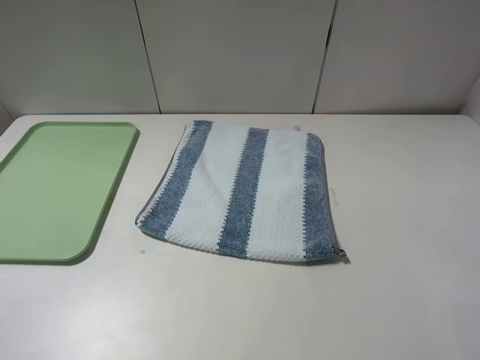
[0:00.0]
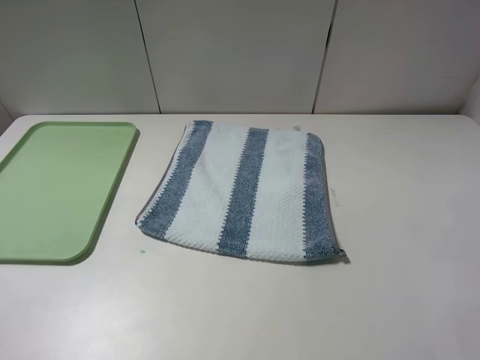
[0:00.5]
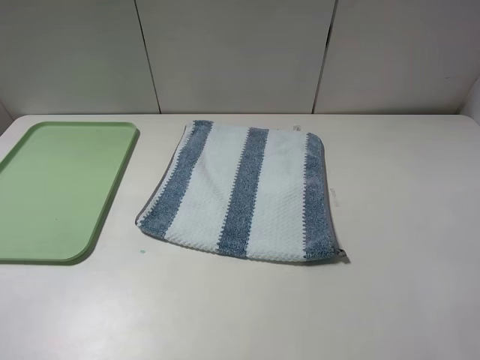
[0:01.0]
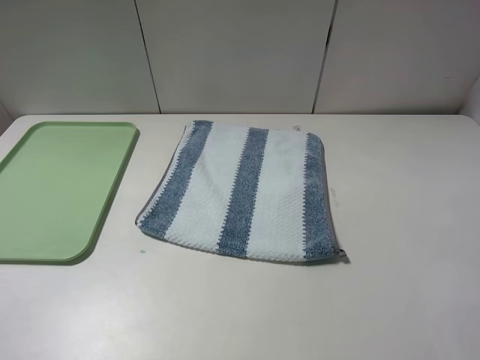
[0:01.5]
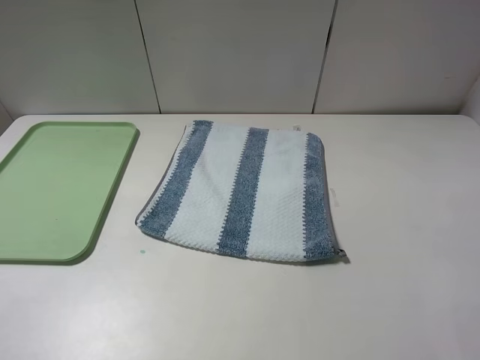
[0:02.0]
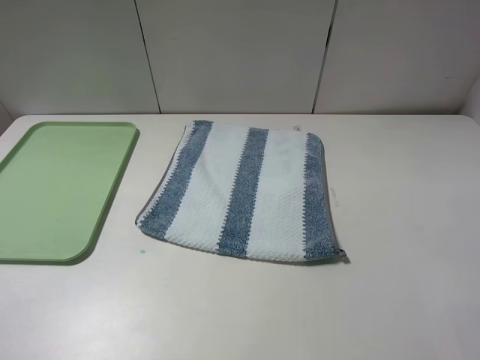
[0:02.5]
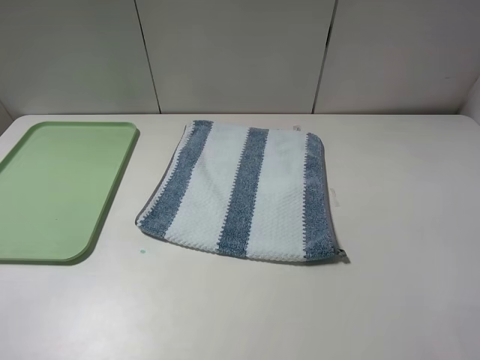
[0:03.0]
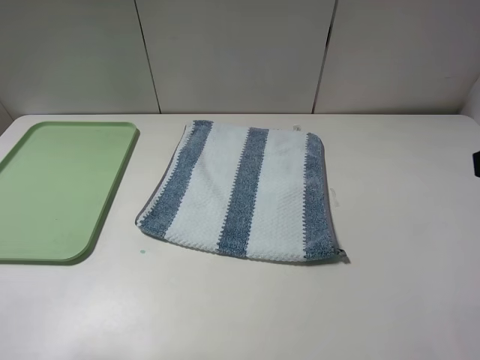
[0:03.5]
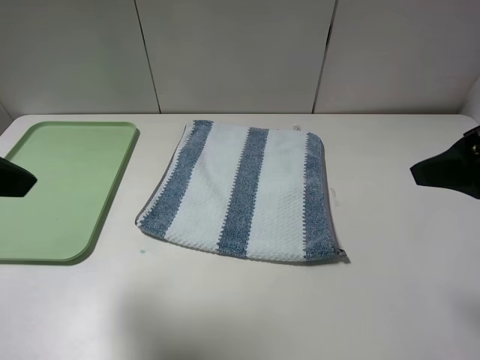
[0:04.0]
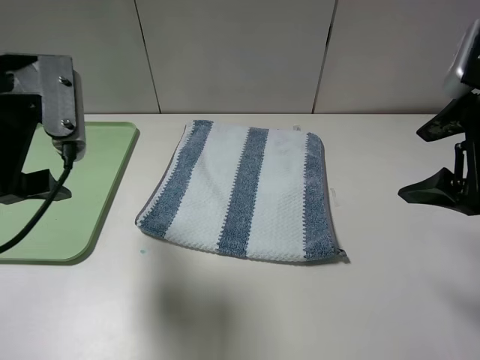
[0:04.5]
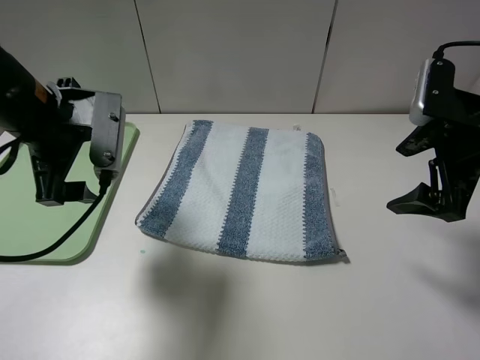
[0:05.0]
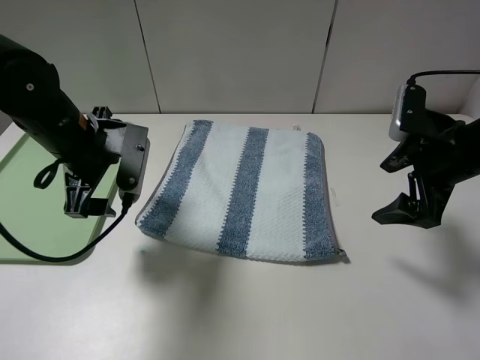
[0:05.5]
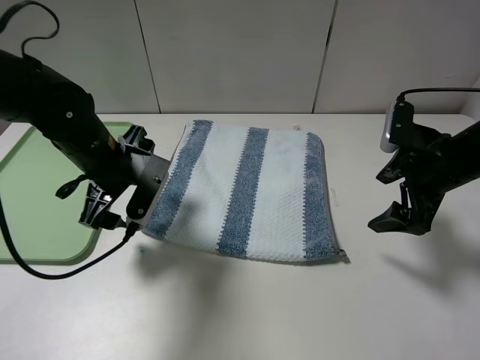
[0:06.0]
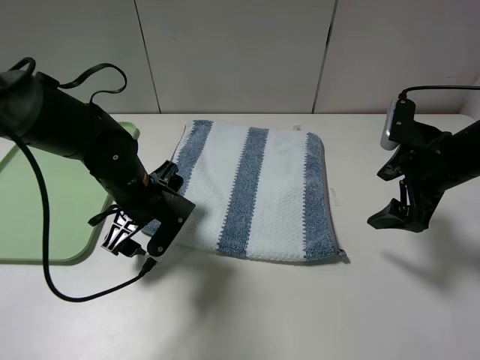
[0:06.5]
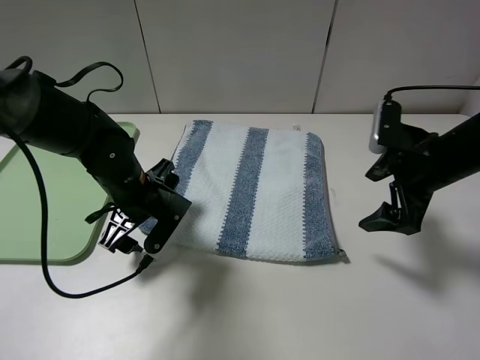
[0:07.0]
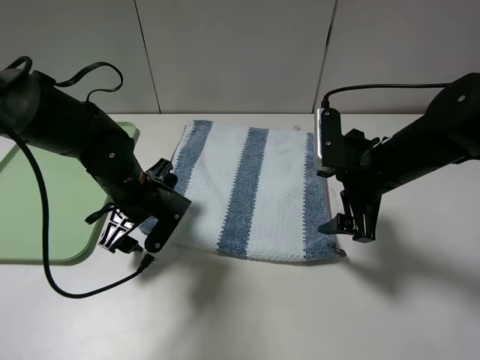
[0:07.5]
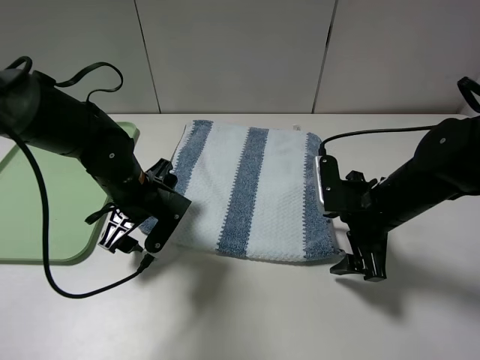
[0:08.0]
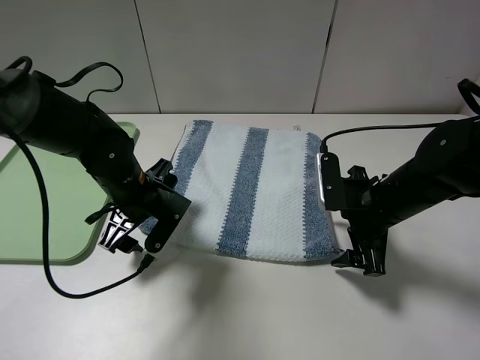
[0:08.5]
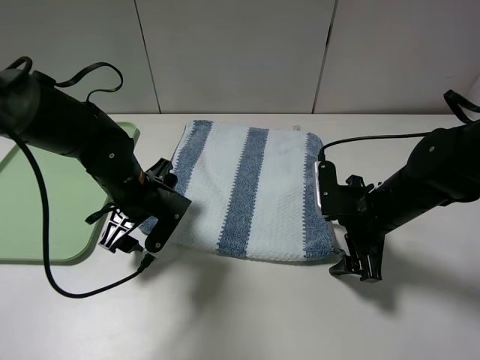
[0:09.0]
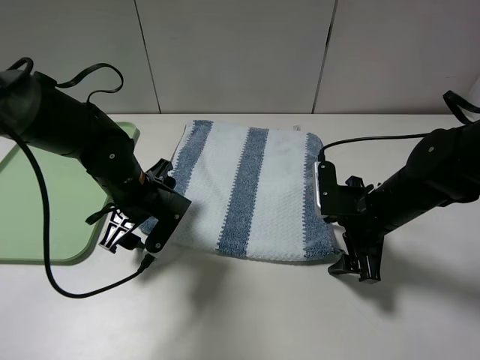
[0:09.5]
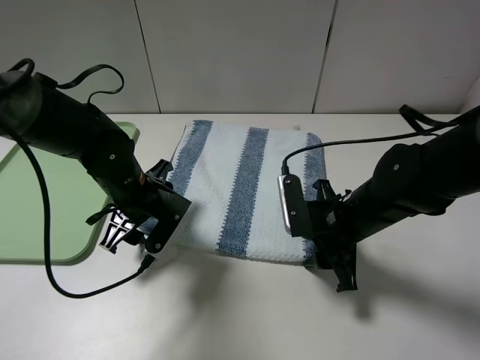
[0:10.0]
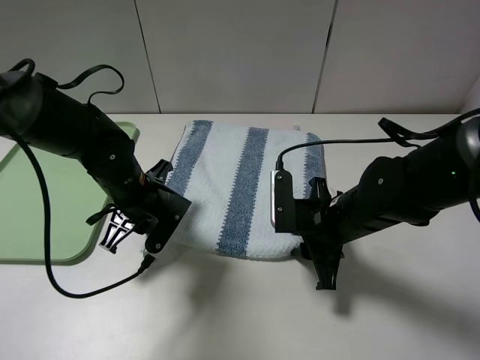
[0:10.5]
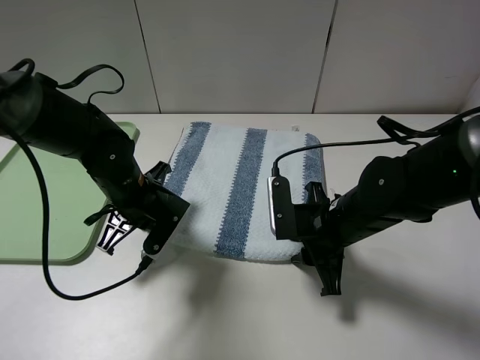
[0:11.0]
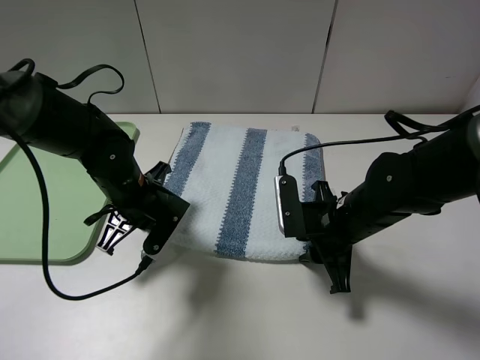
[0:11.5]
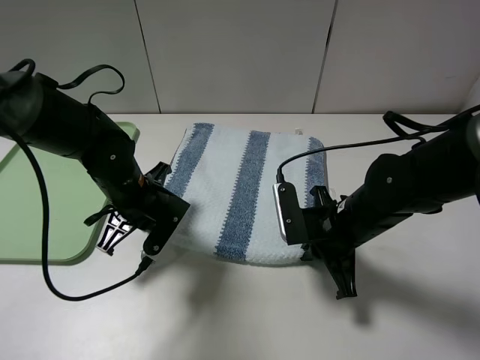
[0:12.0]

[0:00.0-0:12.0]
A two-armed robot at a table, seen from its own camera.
0:00.0 to 0:02.0: The two grippers keep their place.
0:02.0 to 0:04.0: Both grippers move forward, approximately 20 cm.
0:04.0 to 0:06.0: The left gripper moves downward, forward and to the right, approximately 25 cm; the right gripper heads downward and forward, covering about 15 cm.
0:06.0 to 0:08.0: The left gripper moves roughly 5 cm. The right gripper goes about 10 cm to the left and downward.
0:08.0 to 0:10.0: The right gripper heads to the left, covering roughly 5 cm, and closes.
0:10.0 to 0:12.0: The right gripper closes its fingers; the left gripper closes its fingers.

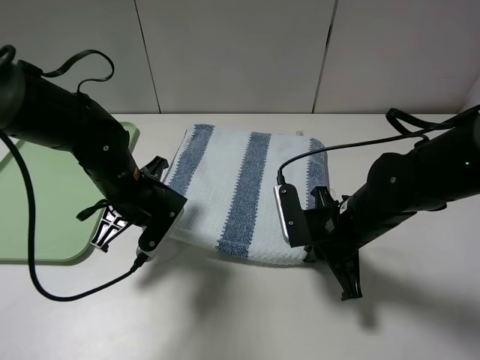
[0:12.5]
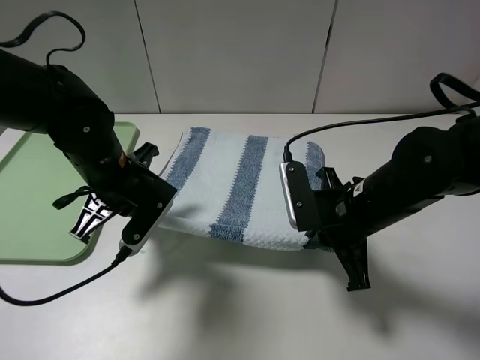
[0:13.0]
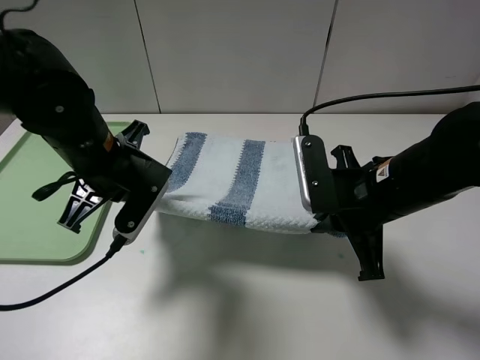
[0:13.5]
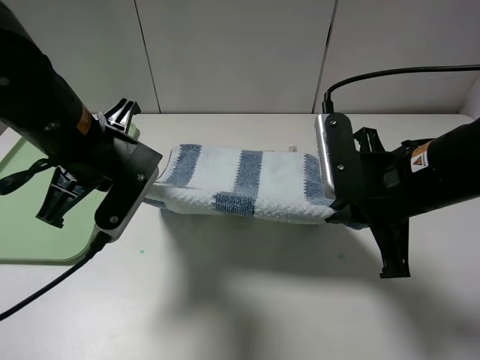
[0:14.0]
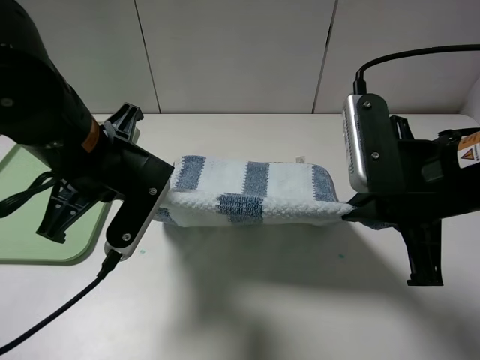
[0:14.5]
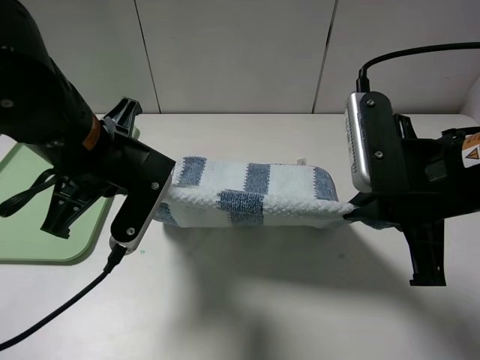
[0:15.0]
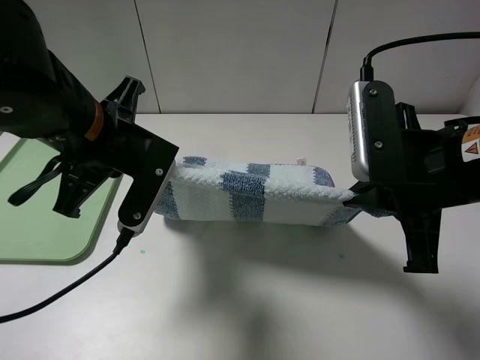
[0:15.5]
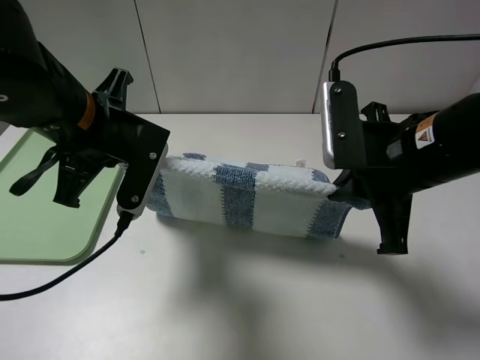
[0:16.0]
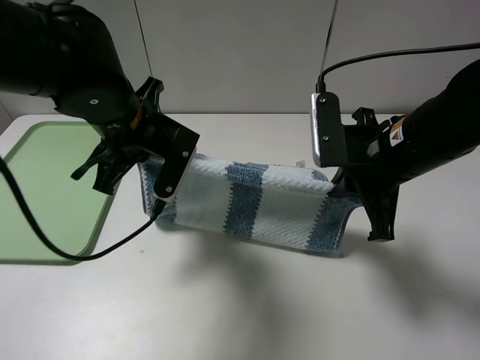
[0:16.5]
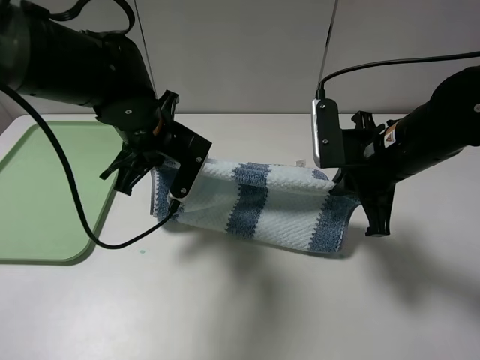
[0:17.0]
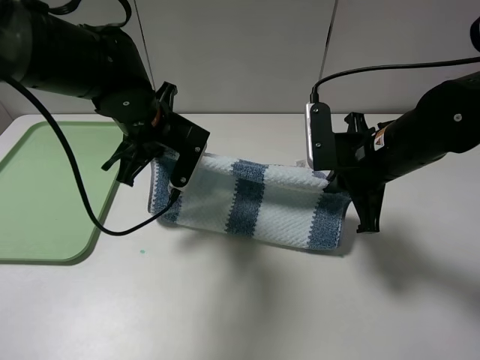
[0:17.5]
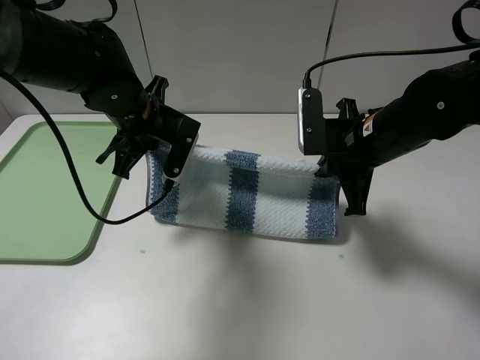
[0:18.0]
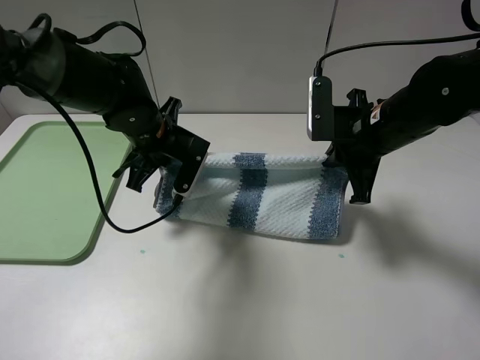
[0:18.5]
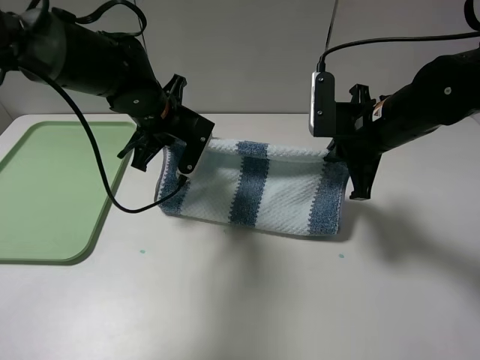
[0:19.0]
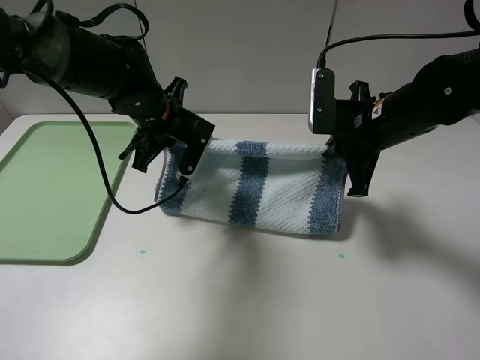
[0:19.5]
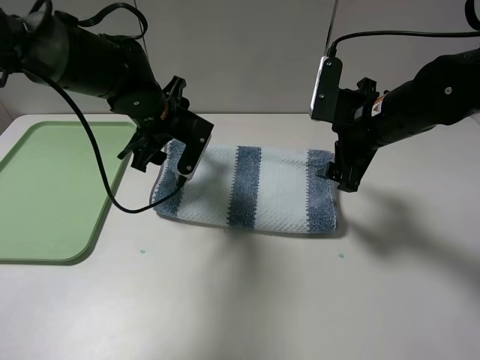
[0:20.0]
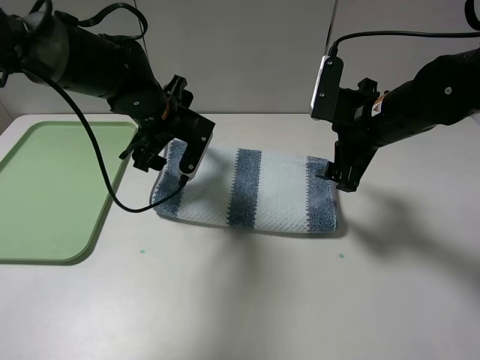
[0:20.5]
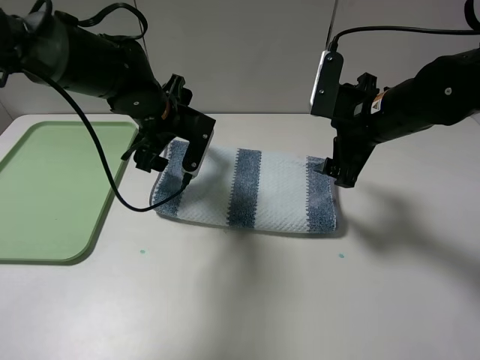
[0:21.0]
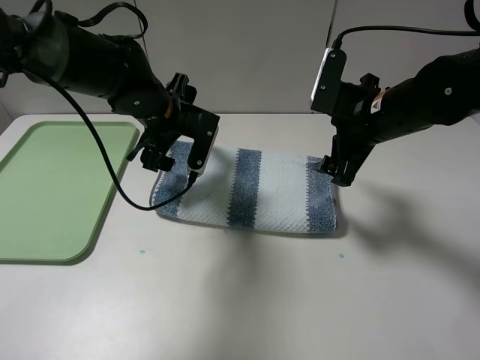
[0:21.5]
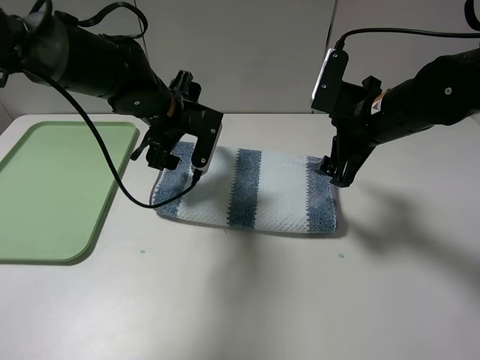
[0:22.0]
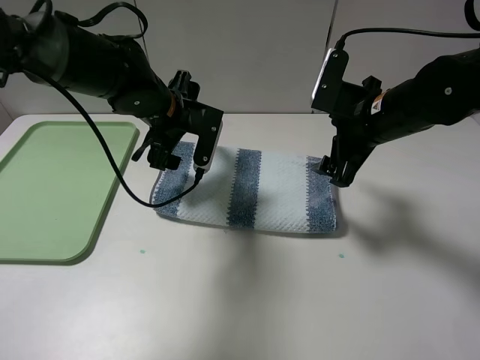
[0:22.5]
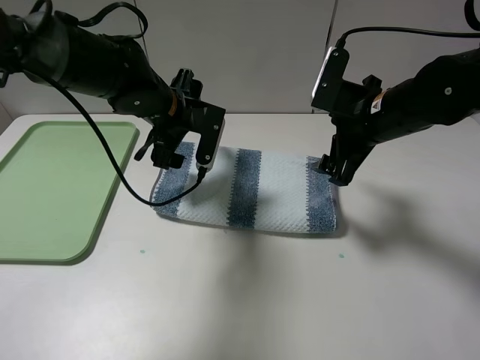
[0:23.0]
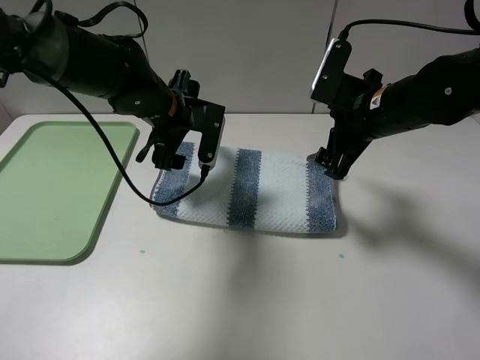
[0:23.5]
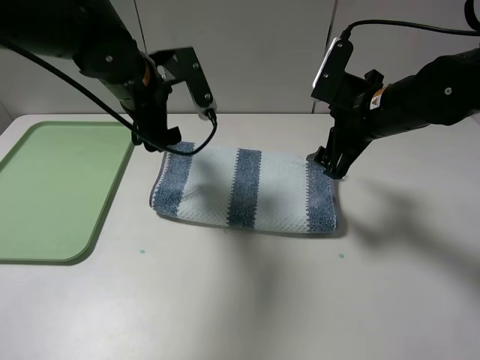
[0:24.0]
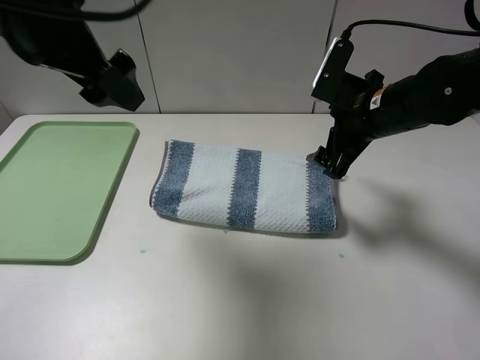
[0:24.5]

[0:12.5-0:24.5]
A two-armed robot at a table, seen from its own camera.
Step, 0:12.5 to 0:20.0: Fold the blue white towel upwards with the left gripper.
0:12.5 to 0:14.5: The left gripper heads upward and backward, covering about 15 cm. Meanwhile the right gripper is displaced upward by approximately 15 cm.
0:14.5 to 0:16.5: Both grippers move forward, some 5 cm.
0:16.5 to 0:18.5: The right gripper heads forward, covering some 5 cm; the left gripper moves downward and forward, about 10 cm.
0:18.5 to 0:20.5: The left gripper opens, while the right gripper opens its fingers.
0:20.5 to 0:22.5: There are only small adjustments of the grippers.
0:22.5 to 0:24.5: The left gripper travels upward, backward and to the left by some 25 cm.

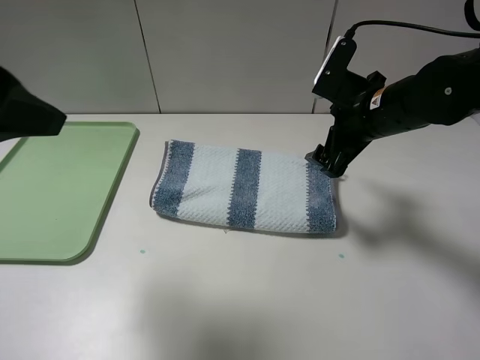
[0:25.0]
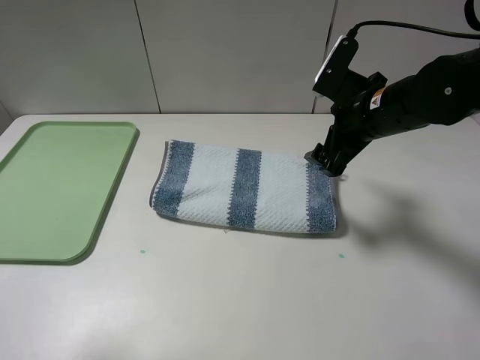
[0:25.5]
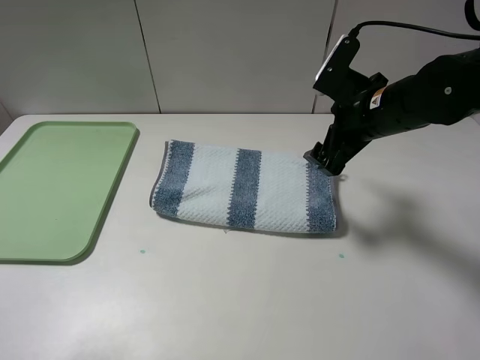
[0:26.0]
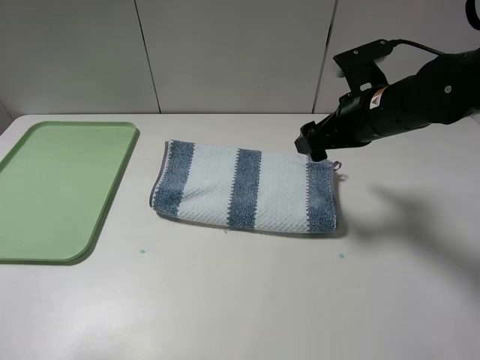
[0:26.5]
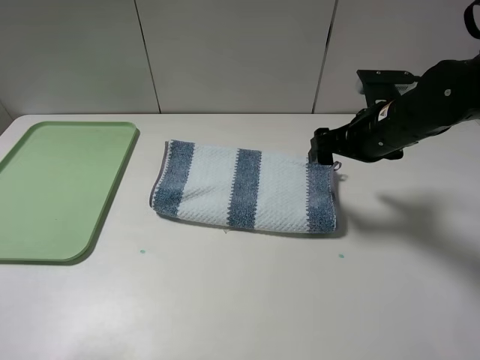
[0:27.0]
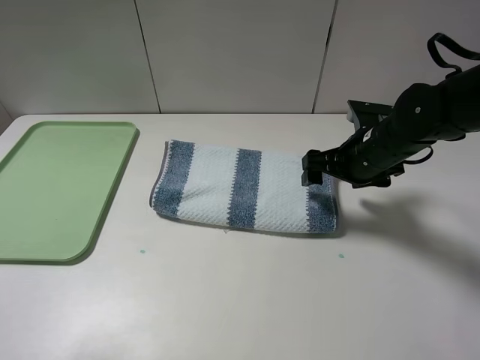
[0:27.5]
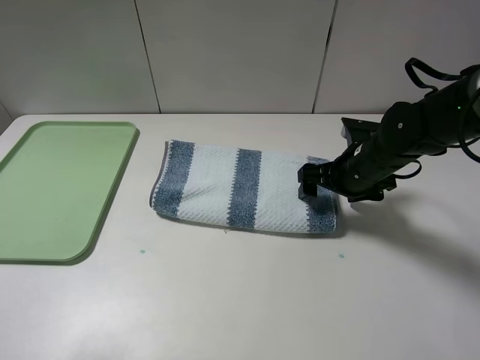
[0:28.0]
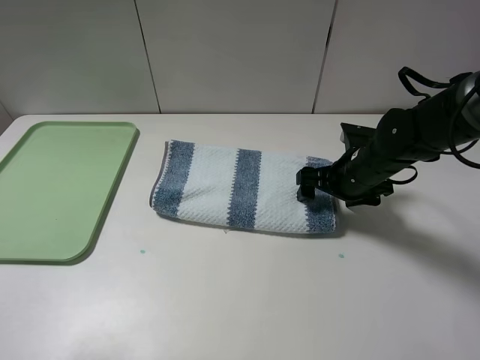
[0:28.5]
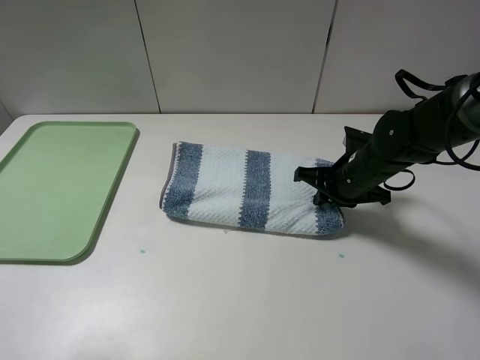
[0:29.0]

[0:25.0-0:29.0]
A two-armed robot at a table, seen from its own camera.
0:25.0 to 0:27.0: The left gripper travels backward and to the left by approximately 10 cm.
0:27.0 to 0:29.0: The right gripper is displaced downward by some 10 cm, and closes its fingers.
